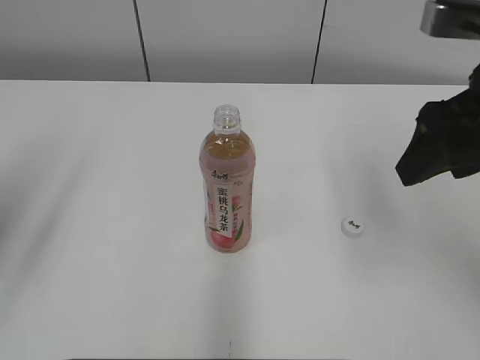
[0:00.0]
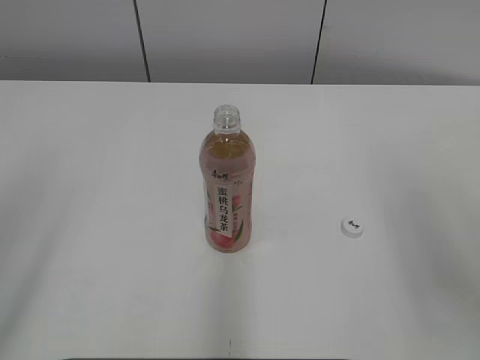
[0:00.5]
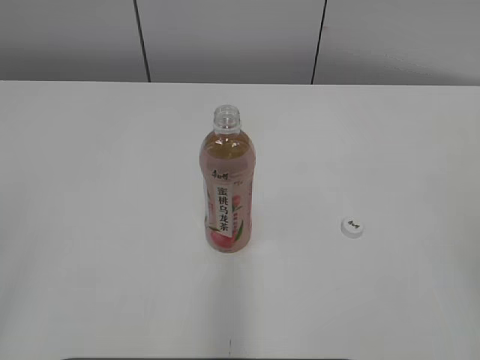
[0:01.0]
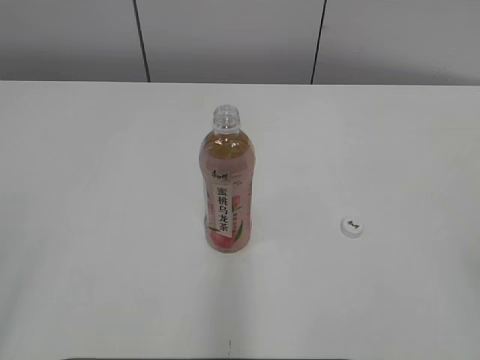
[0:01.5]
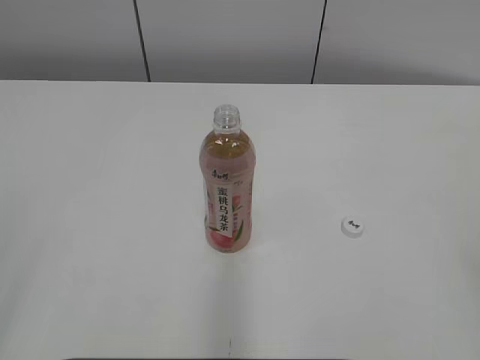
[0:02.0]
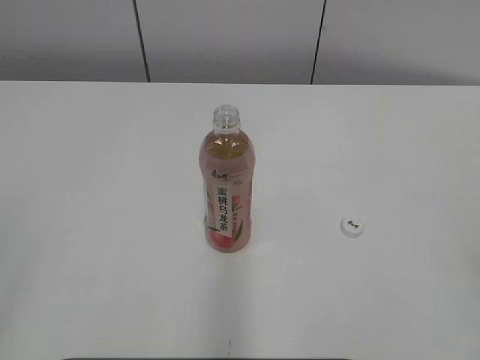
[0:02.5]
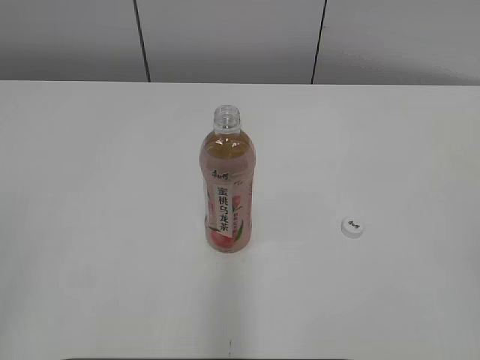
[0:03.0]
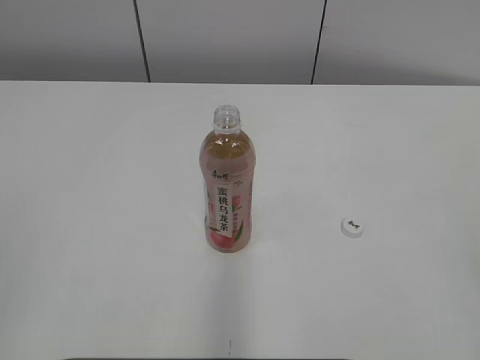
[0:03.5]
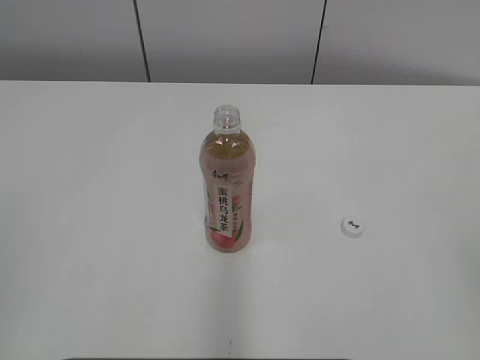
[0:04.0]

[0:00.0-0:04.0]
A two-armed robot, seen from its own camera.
0:00.0 to 0:02.0: The right gripper heads backward and to the right, covering roughly 25 cm, and closes its fingers.
